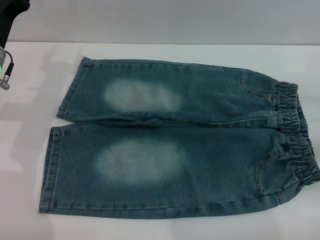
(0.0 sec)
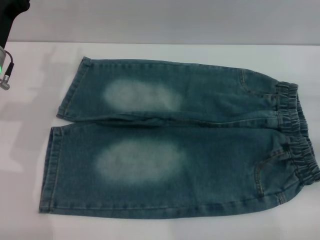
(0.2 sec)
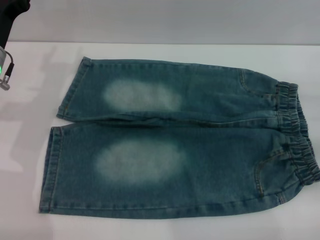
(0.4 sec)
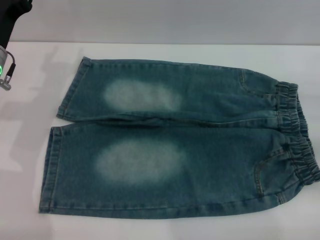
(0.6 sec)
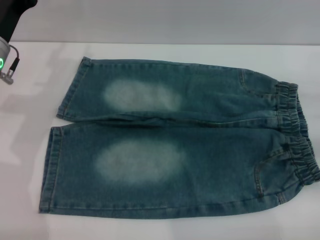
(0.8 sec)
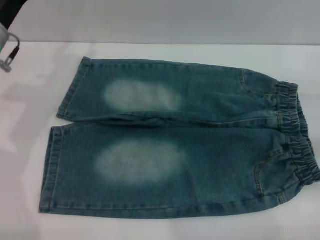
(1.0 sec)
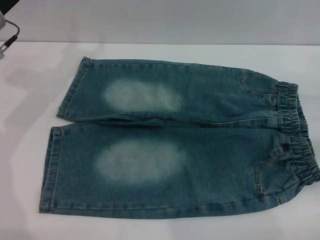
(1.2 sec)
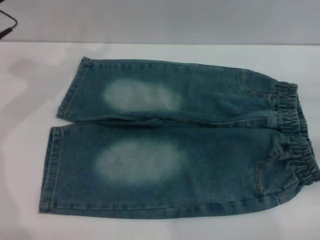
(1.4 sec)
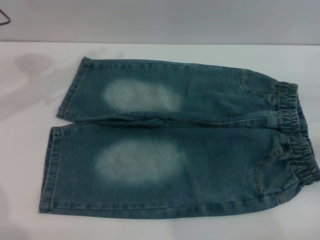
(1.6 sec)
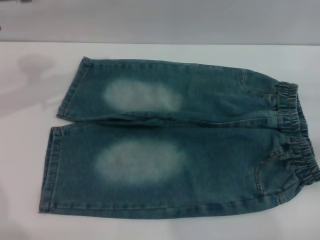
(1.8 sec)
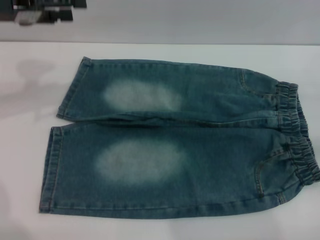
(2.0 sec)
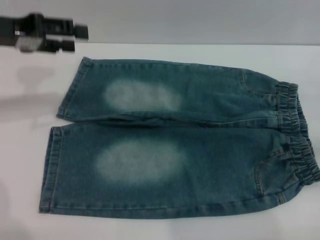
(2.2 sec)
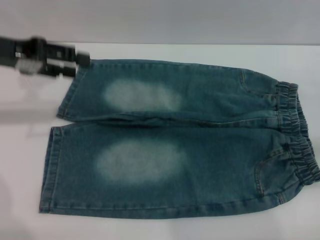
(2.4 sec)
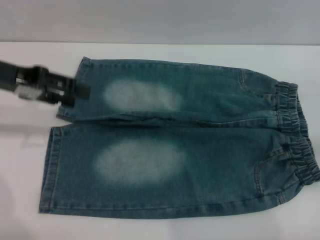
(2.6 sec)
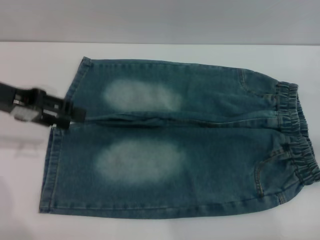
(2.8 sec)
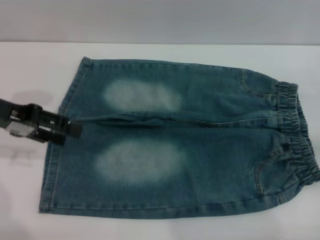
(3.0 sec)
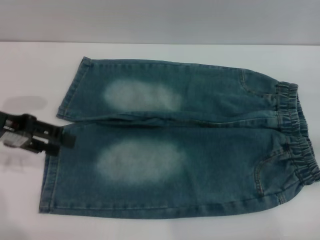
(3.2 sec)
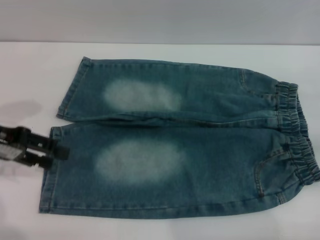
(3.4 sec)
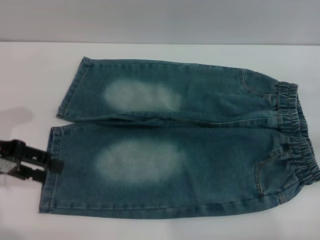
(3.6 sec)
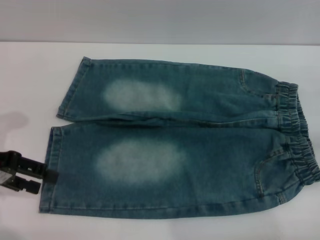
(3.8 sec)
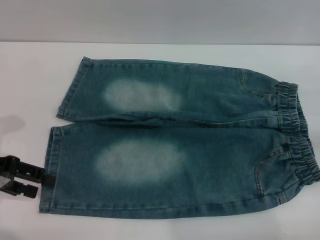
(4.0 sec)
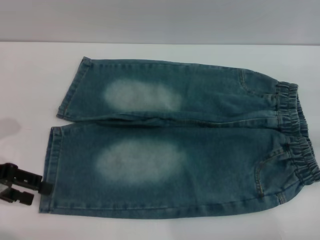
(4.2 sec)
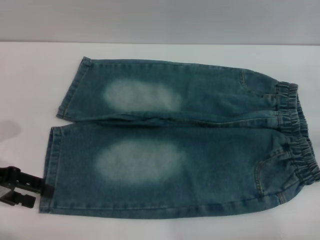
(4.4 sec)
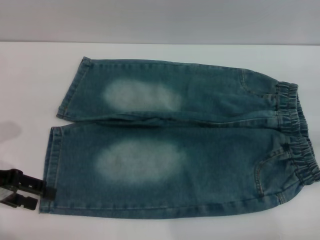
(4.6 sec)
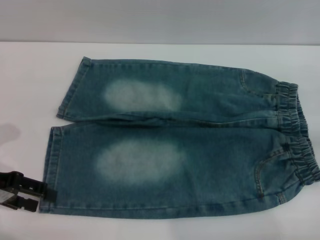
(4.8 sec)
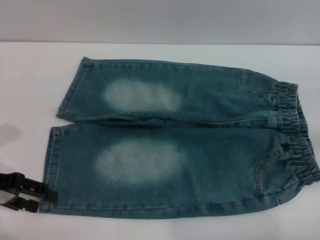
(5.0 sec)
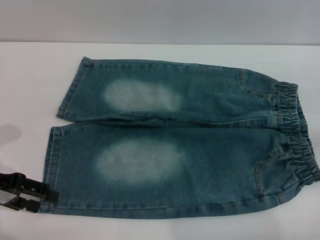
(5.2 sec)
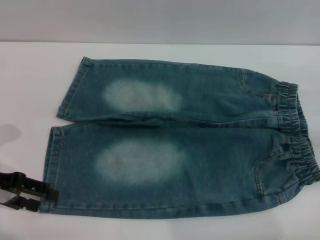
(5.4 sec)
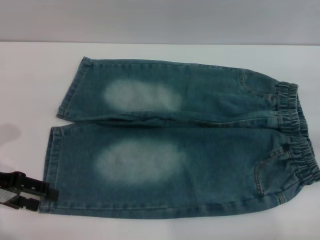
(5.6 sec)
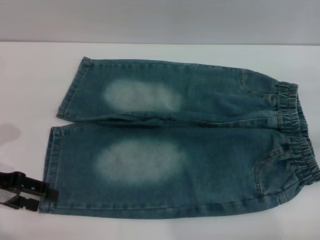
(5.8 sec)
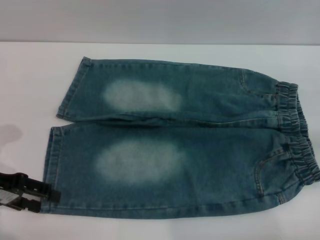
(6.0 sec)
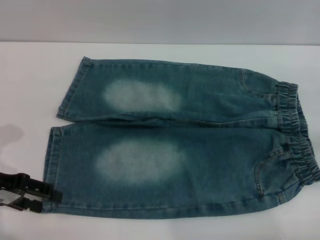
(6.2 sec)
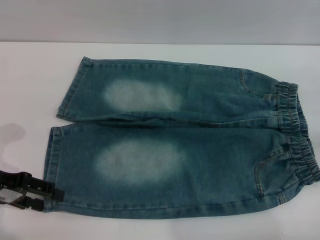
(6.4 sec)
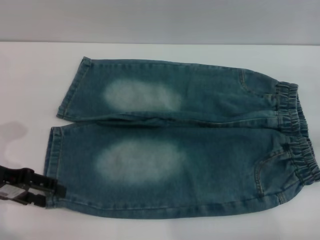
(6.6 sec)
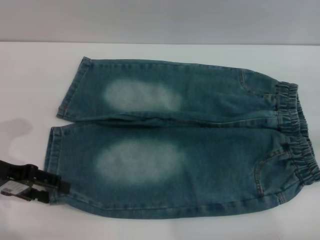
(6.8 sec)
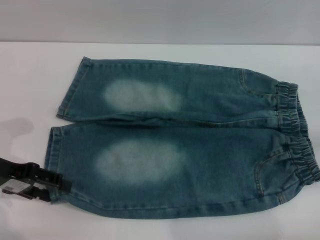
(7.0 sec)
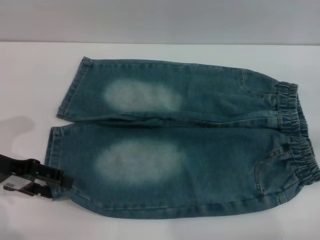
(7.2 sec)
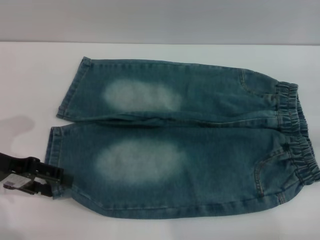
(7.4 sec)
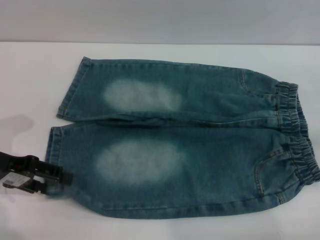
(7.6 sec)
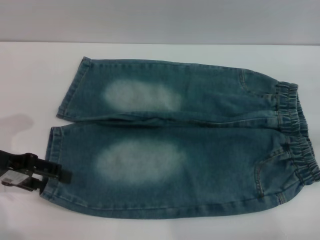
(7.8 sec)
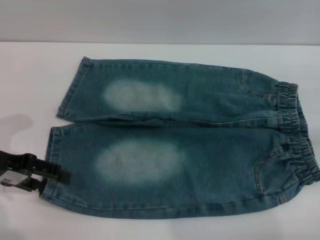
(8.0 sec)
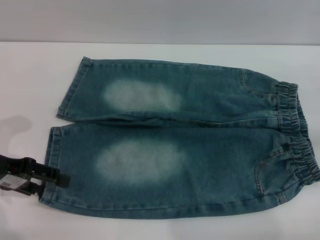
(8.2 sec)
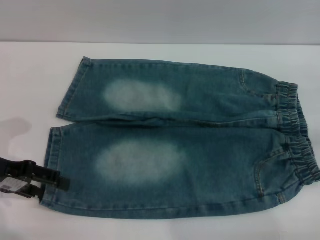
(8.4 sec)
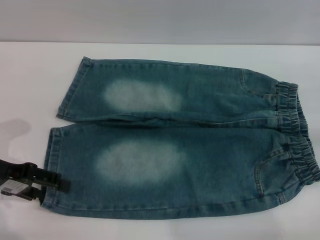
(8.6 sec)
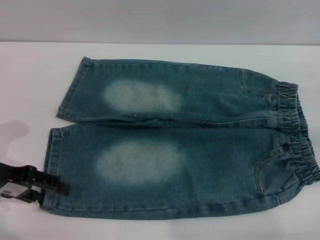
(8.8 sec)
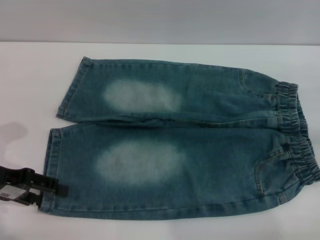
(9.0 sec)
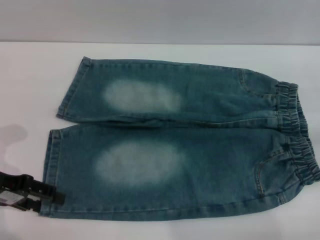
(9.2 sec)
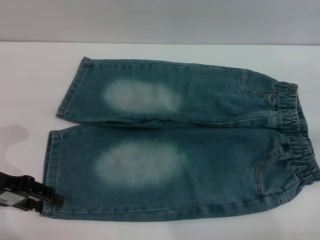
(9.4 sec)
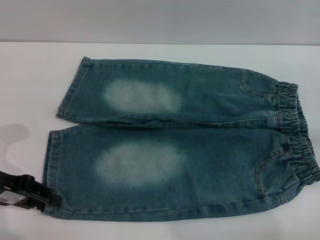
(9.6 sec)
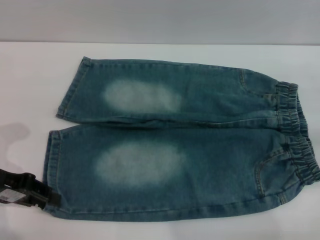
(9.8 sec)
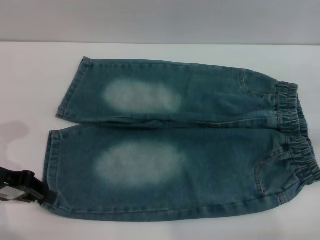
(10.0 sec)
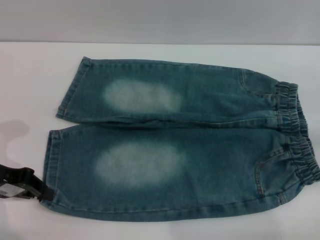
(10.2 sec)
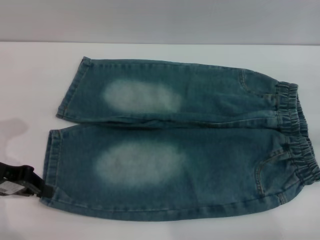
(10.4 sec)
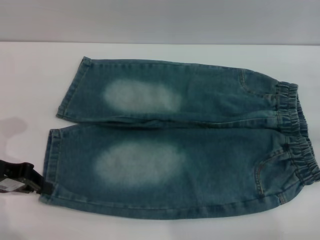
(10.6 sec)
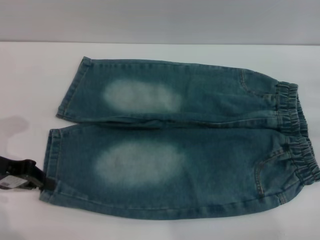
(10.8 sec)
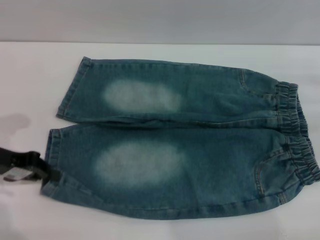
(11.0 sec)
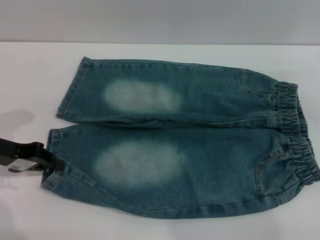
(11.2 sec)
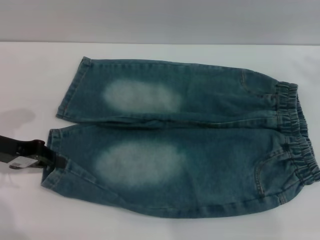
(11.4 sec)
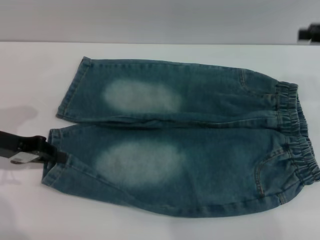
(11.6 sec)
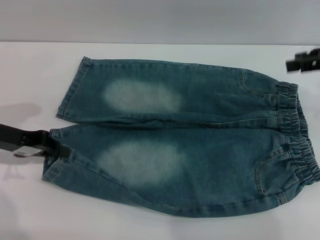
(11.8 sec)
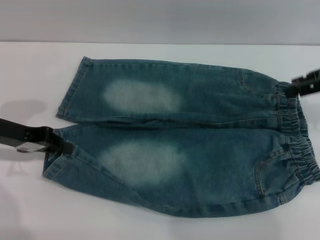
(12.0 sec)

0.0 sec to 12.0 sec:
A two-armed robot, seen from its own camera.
0.0 sec to 1.6 sec: The left gripper goes roughly 10 cm upward.
1.6 sec to 3.0 sec: The left gripper goes about 10 cm backward.
3.0 sec to 4.4 sec: The left gripper shifts roughly 5 cm downward.
4.4 sec to 9.0 sec: There are only small adjustments of the grippers.
9.0 sec to 10.4 sec: The left gripper closes its fingers.
10.4 sec to 12.0 sec: The right gripper heads upward, to the left and forward, covering about 15 cm.

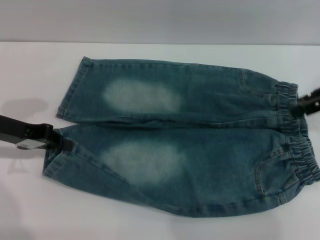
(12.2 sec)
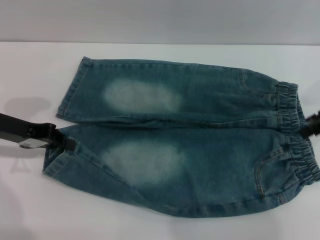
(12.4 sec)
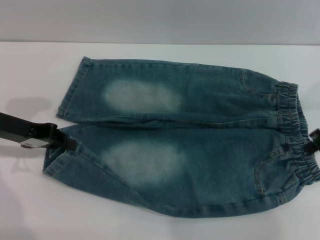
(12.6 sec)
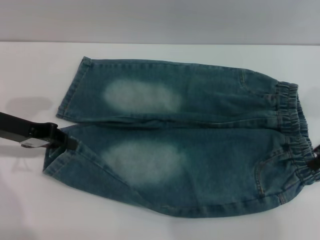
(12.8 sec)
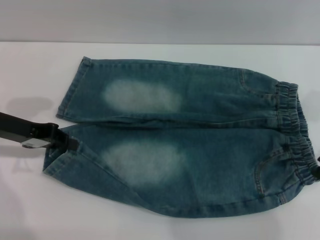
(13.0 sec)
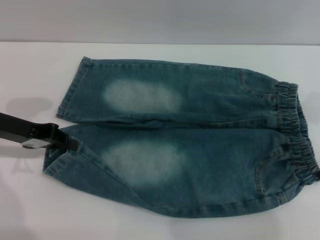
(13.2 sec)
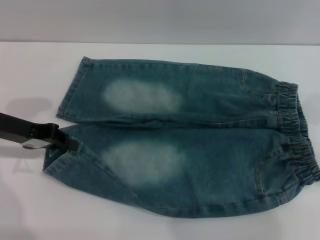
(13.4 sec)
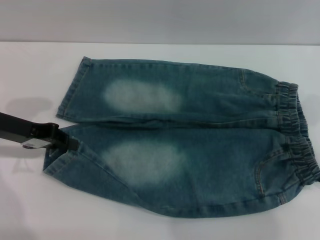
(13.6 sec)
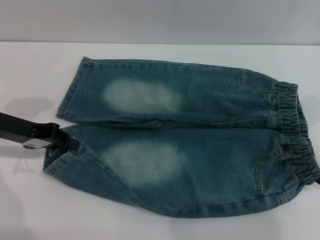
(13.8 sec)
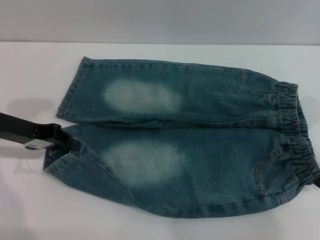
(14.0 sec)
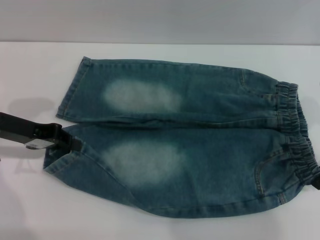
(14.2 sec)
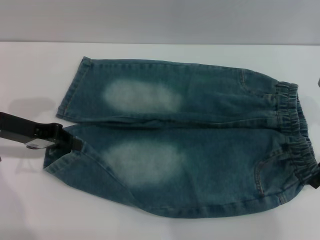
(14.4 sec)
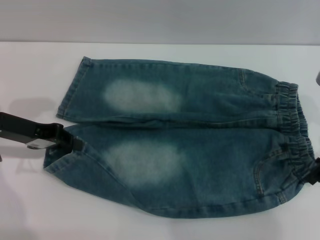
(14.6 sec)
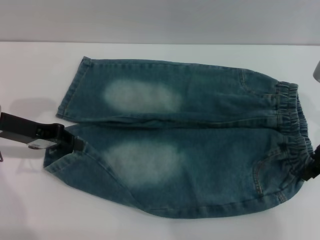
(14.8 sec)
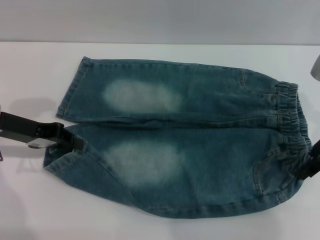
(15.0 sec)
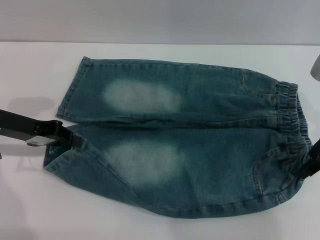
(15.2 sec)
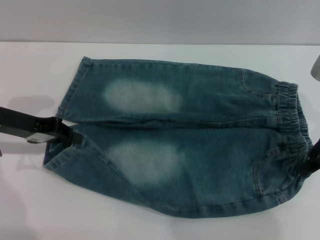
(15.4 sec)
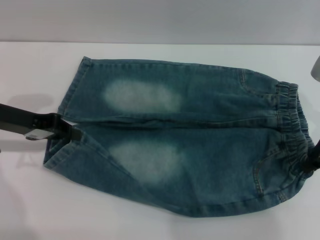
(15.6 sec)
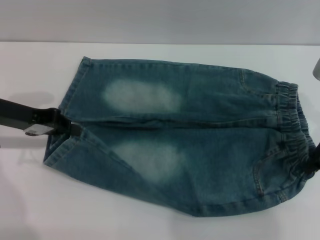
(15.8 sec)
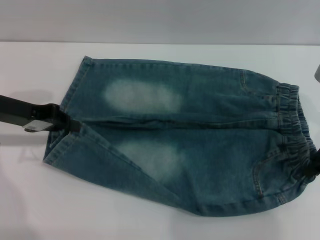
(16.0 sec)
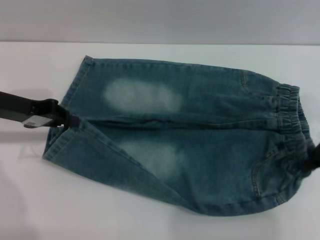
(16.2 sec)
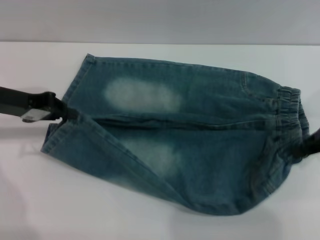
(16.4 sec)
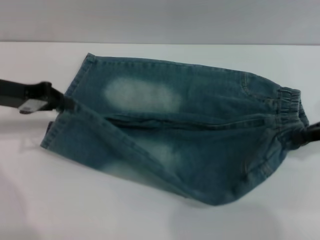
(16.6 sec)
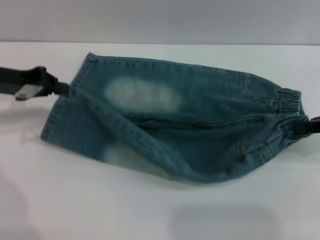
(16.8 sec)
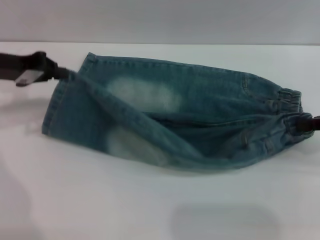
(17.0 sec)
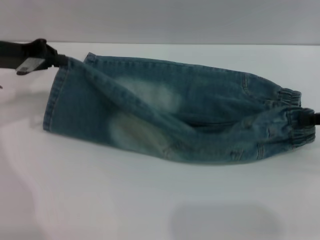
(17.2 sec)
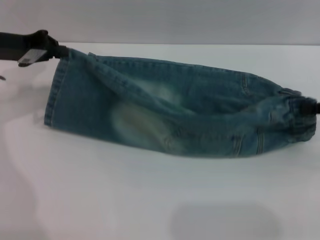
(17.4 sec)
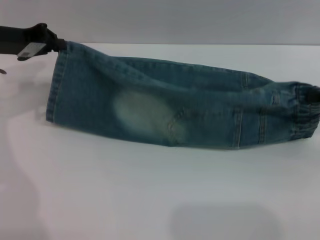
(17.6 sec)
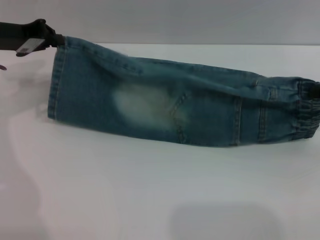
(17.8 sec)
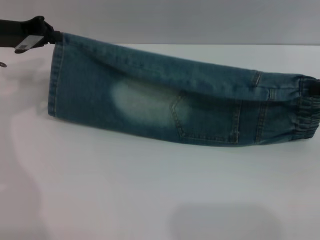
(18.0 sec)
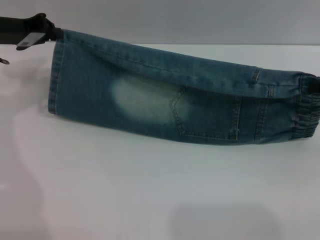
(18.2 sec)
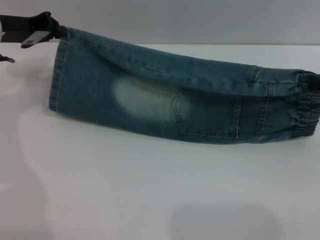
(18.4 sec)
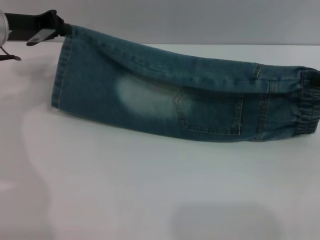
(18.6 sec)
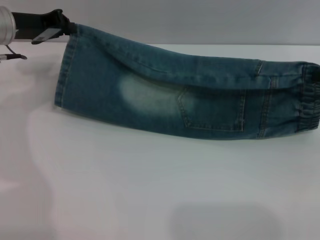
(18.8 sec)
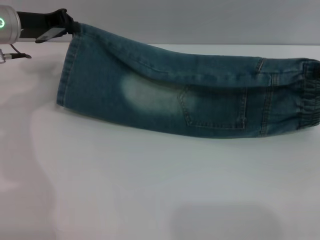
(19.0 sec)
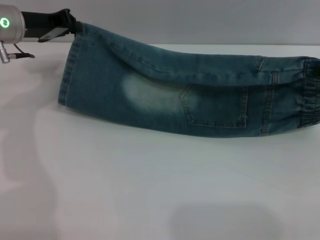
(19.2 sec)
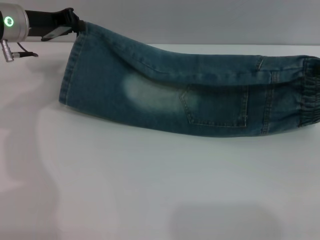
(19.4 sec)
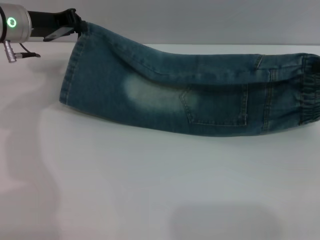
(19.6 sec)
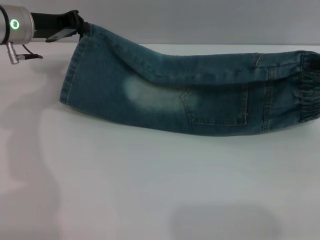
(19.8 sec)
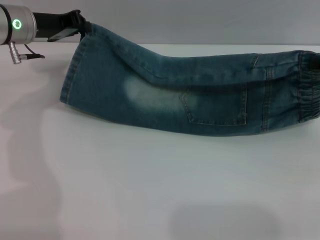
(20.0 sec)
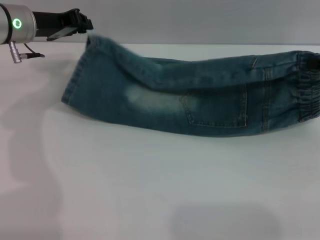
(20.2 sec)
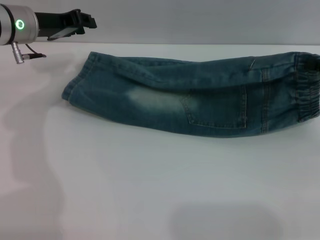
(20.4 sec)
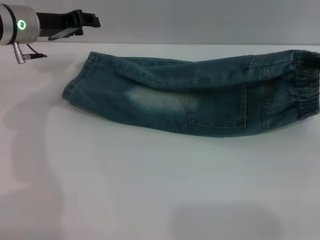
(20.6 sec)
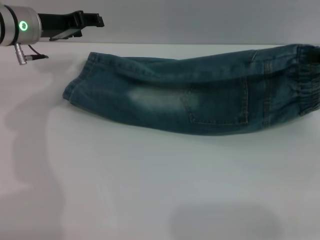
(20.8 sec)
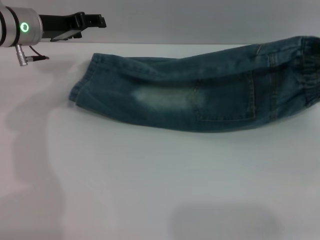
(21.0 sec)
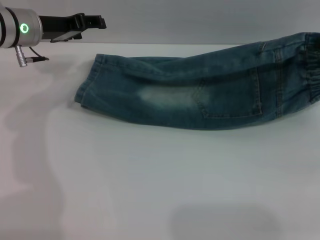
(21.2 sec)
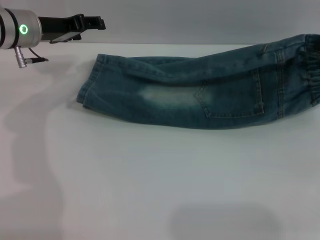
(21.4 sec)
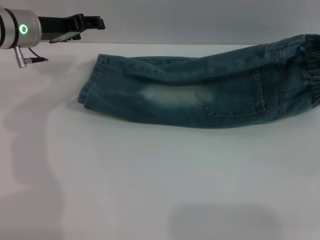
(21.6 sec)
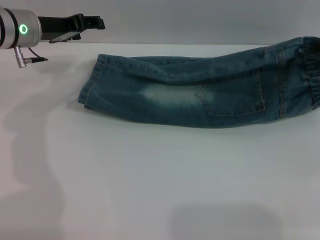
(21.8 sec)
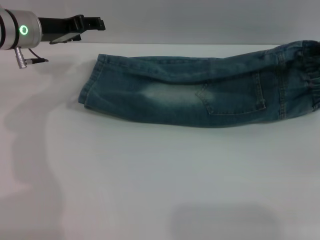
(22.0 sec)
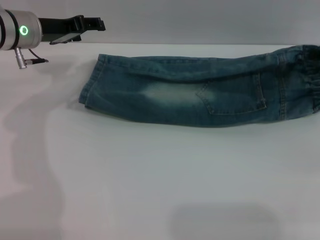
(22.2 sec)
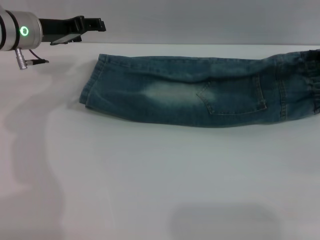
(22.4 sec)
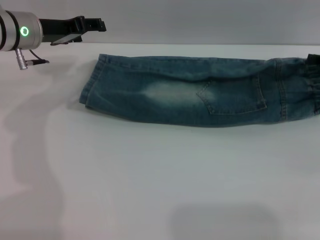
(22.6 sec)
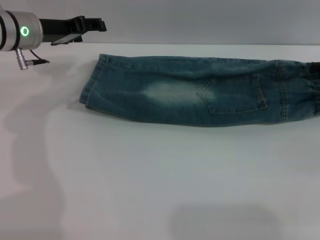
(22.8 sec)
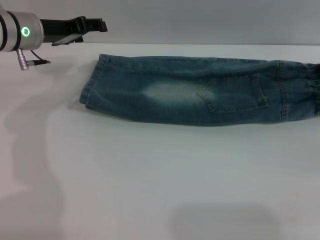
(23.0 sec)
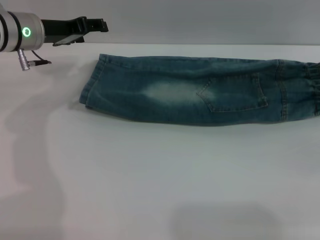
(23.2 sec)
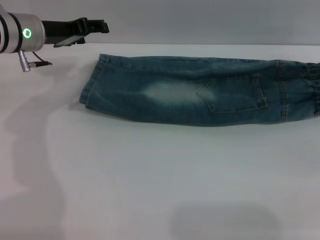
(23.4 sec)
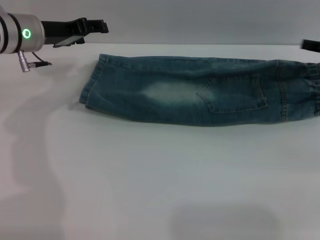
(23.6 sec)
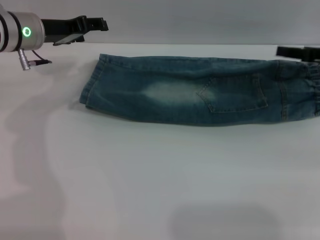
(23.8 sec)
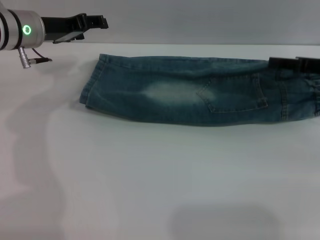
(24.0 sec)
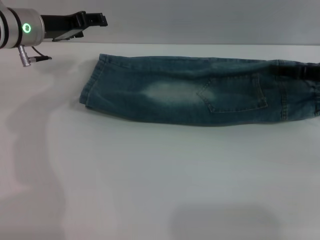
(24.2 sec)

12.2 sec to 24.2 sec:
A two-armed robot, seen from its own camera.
Step, 12.2 sec to 23.2 sec: Fold the bottom of the pants upward with both grippers.
12.2 sec to 13.8 sec: The right gripper moves downward, some 5 cm.
13.8 sec to 15.2 sec: There are only small adjustments of the grippers.
15.2 sec to 16.6 sec: The right gripper travels to the right by about 5 cm, and closes.
16.6 sec to 18.2 sec: The right gripper ends up about 5 cm from where it was; the left gripper travels forward by approximately 5 cm.
18.2 sec to 19.8 sec: The left gripper moves to the right, approximately 5 cm.
19.8 sec to 21.2 sec: The left gripper opens its fingers.
21.2 sec to 22.6 sec: The right gripper moves approximately 5 cm, and opens.
22.6 sec to 24.2 sec: The grippers make only small movements.
